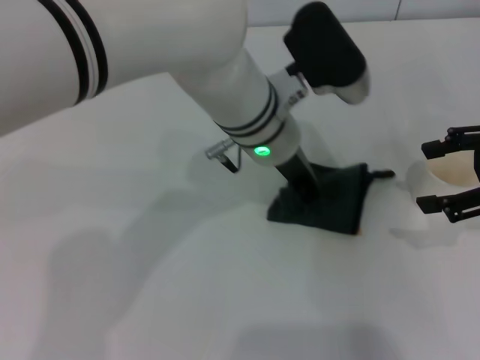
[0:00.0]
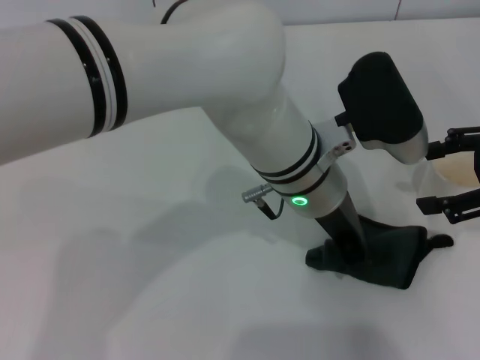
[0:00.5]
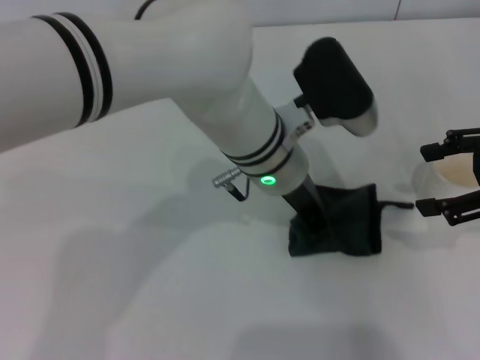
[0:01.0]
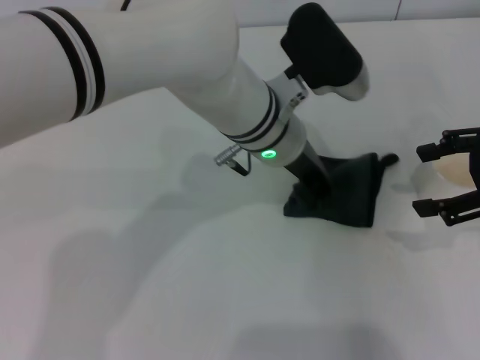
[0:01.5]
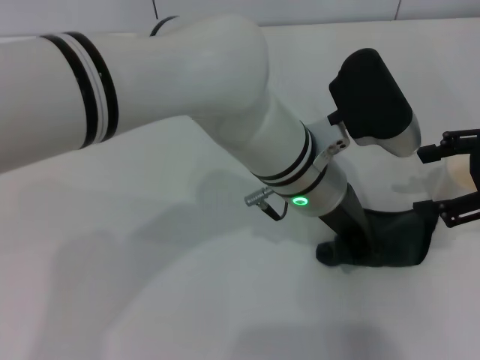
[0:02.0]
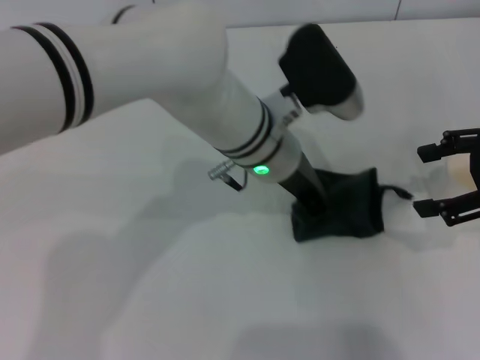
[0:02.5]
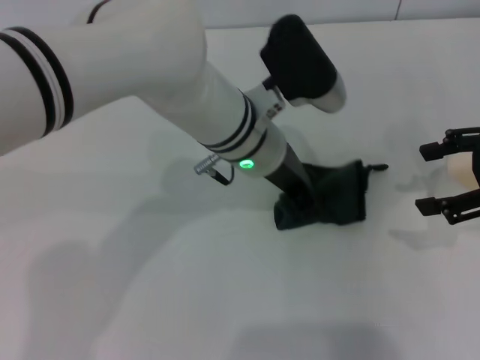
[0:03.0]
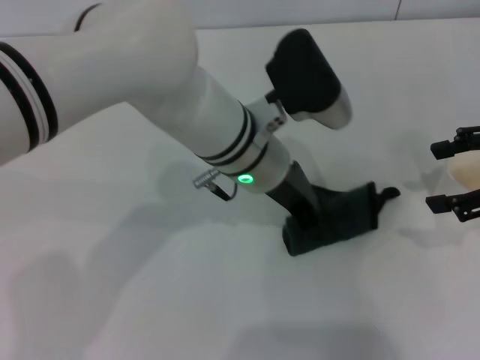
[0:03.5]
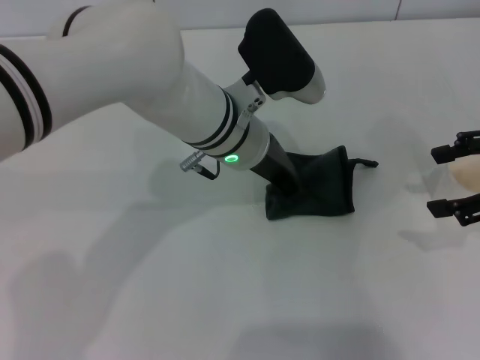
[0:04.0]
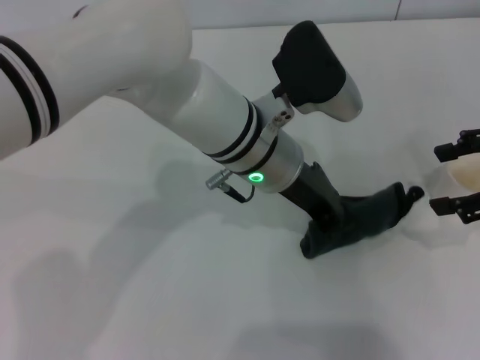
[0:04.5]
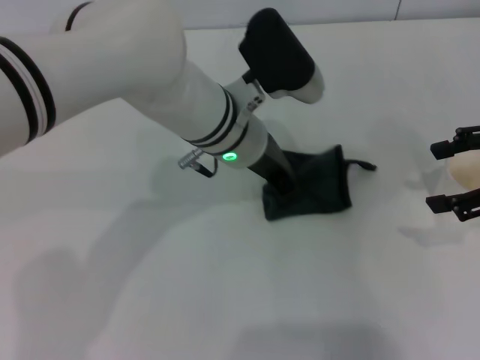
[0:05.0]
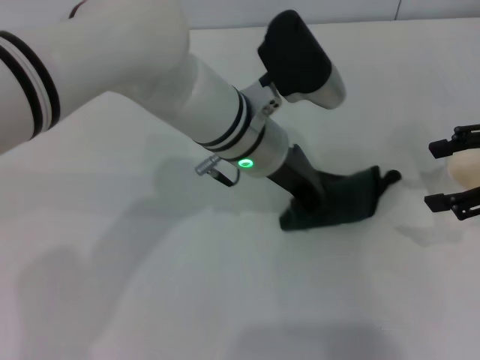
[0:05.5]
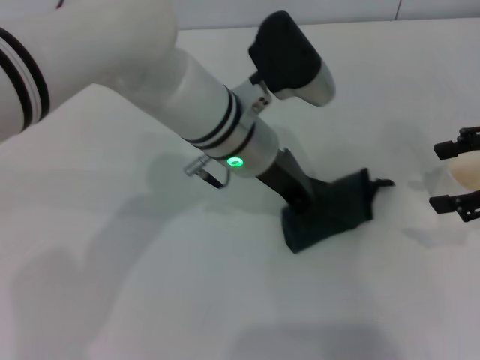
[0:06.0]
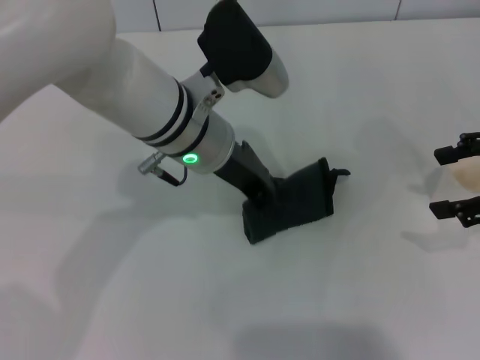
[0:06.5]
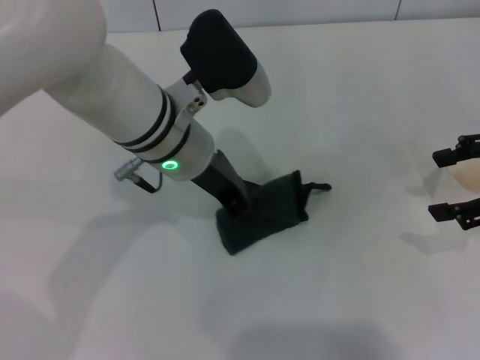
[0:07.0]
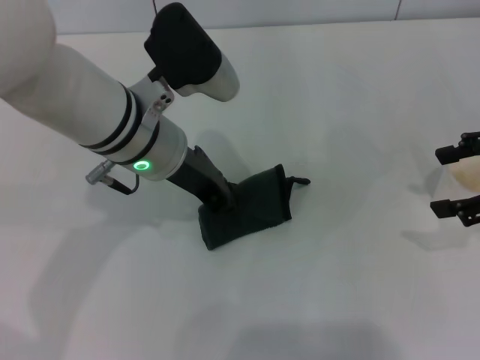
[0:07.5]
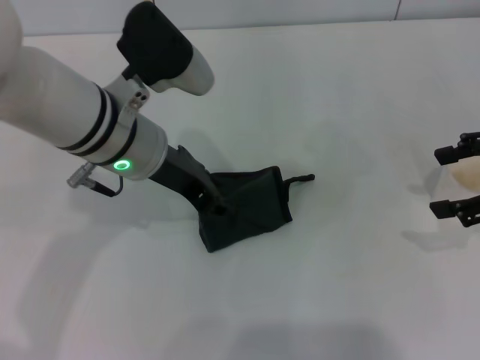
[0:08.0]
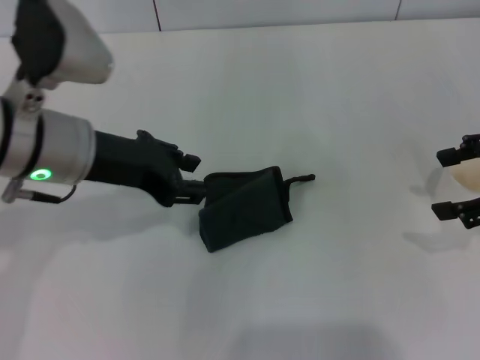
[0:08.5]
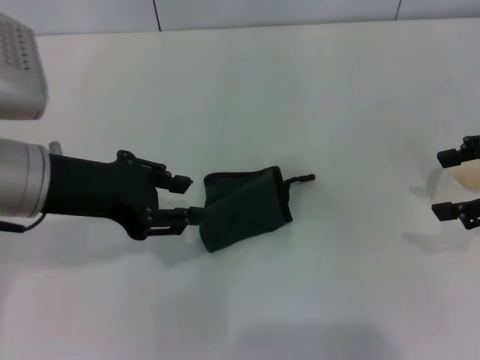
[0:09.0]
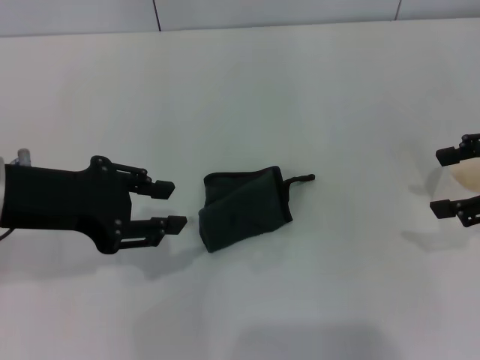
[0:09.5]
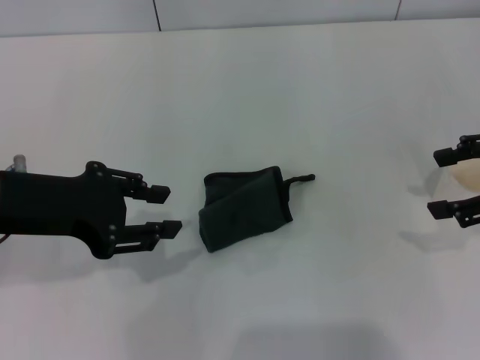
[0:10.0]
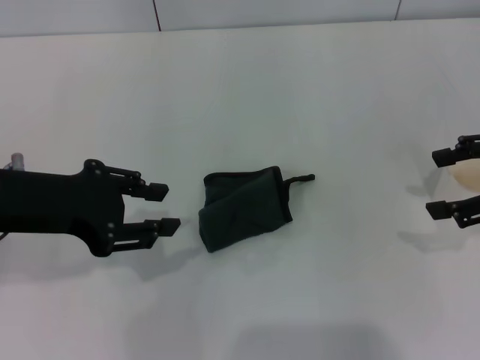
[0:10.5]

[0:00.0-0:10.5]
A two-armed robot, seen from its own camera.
Step, 0:00.0 to 0:07.5: Wipe the stains off the table with the left gripper.
Step, 0:08.0 to 0:08.5: Place the rag on the table with the left gripper.
0:00.0 to 0:02.0: The left gripper moves forward and backward over about 5 cm, changing direction 2 times.
0:02.0 to 0:04.0: The left gripper travels to the left by roughly 5 cm.
0:04.0 to 0:06.5: The grippers stay close to where they were, moving slightly.
0:06.5 to 0:08.5: The left gripper heads to the left, covering approximately 10 cm, and opens its fingers.
0:08.5 to 0:10.5: The left gripper goes approximately 5 cm to the left.
